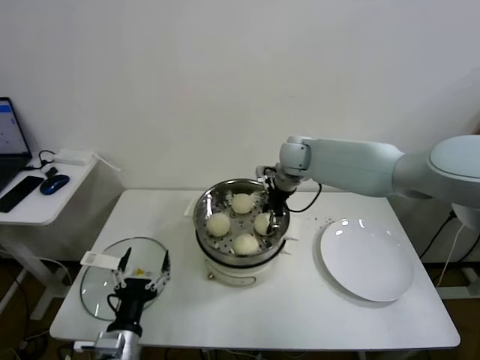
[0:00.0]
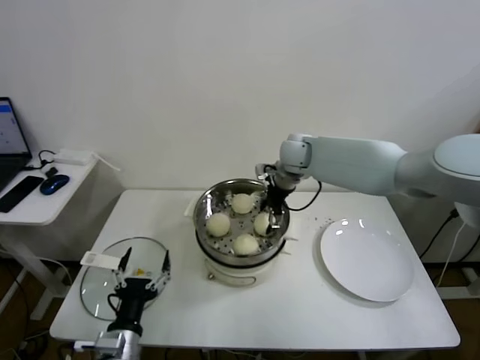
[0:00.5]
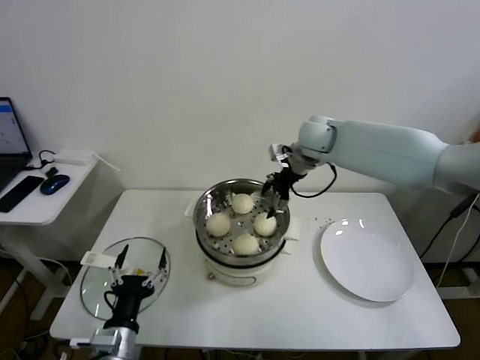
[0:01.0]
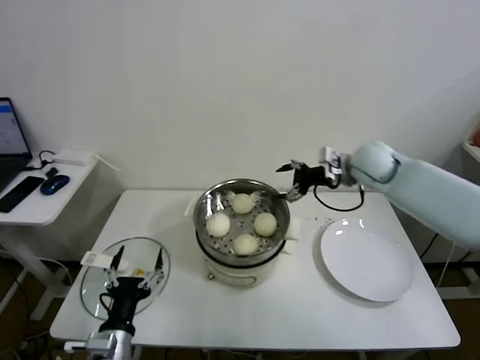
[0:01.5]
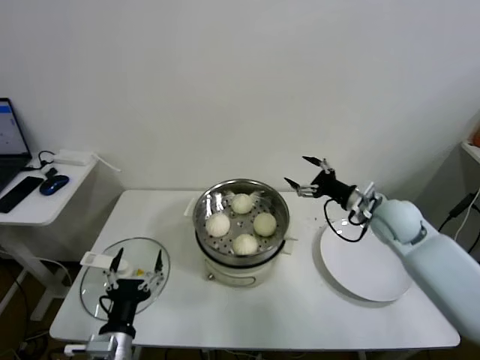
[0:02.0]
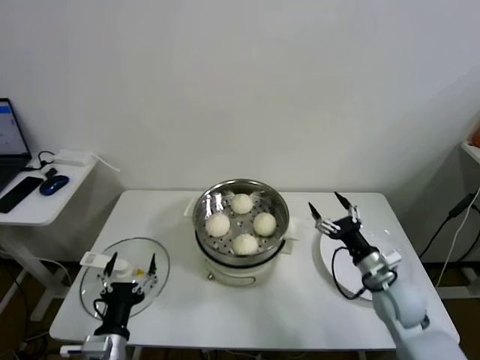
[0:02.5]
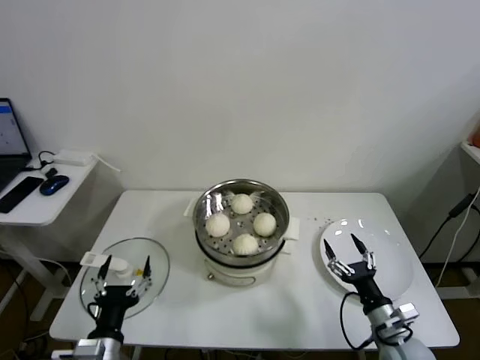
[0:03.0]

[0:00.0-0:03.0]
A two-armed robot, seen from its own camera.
Task of the whole recording: take steamed baozi put them in steamer.
0:00.0 to 0:01.5: The right gripper is displaced to the right by about 15 cm, and opens.
0:01.5 to 0:03.0: The right gripper goes some 40 cm backward and downward.

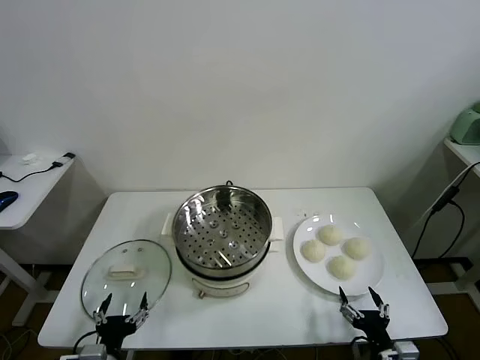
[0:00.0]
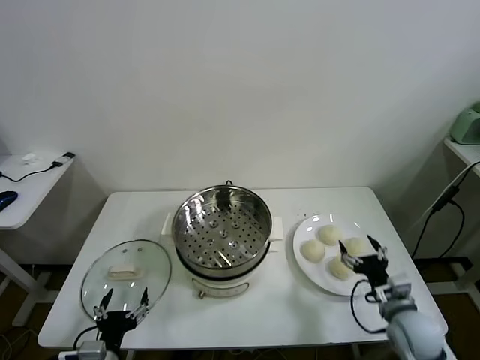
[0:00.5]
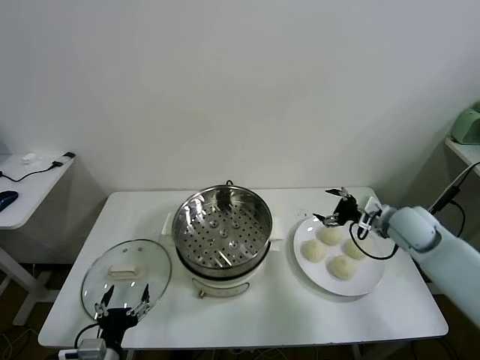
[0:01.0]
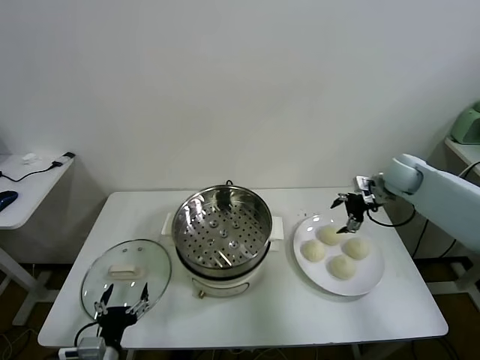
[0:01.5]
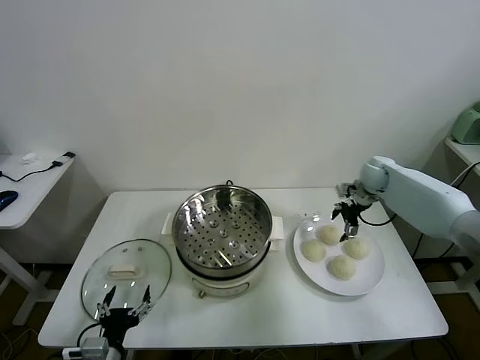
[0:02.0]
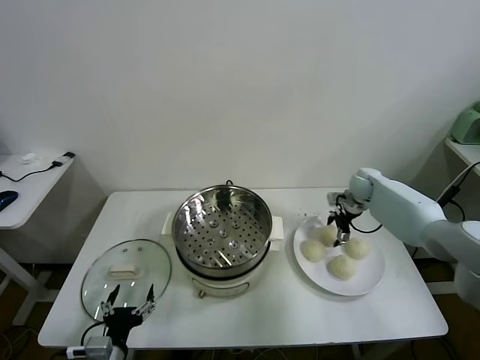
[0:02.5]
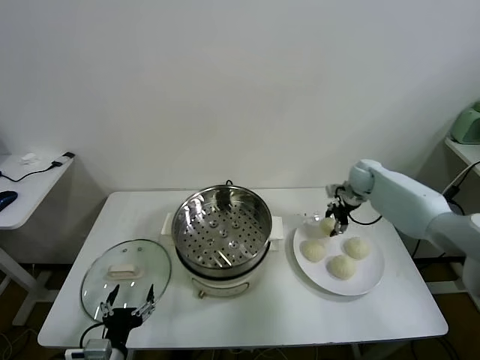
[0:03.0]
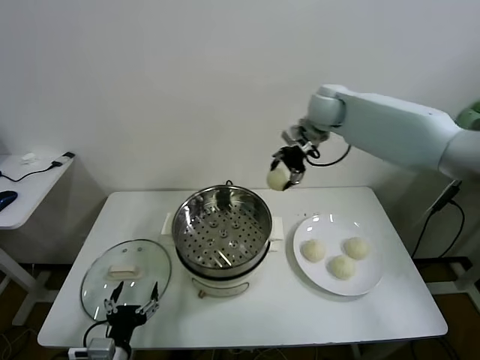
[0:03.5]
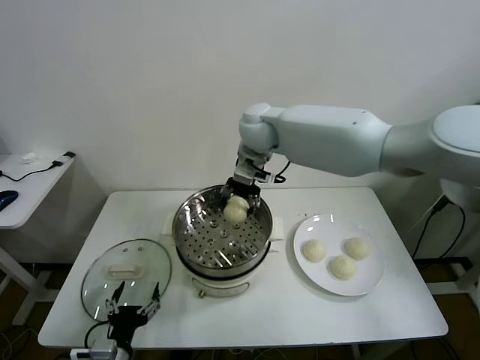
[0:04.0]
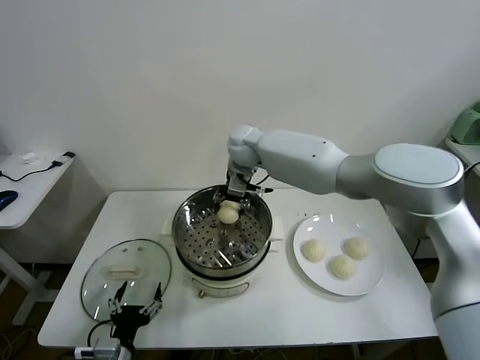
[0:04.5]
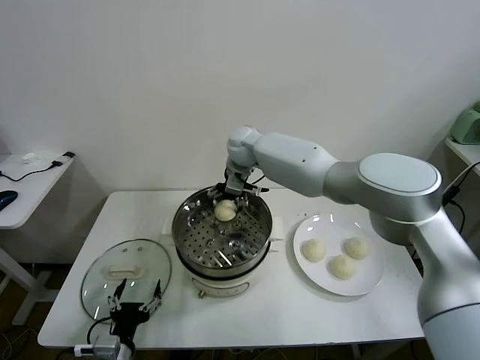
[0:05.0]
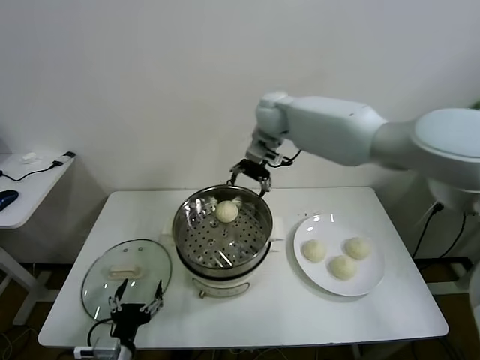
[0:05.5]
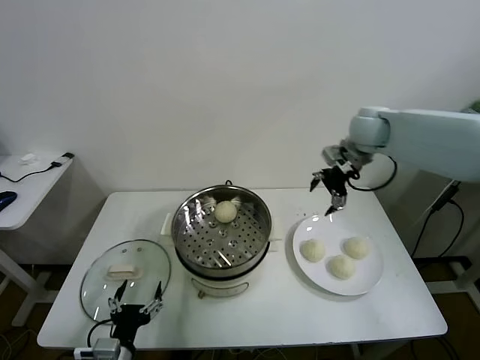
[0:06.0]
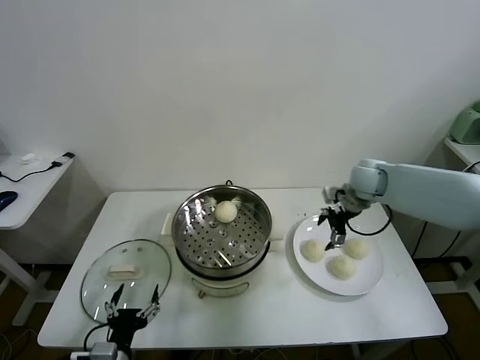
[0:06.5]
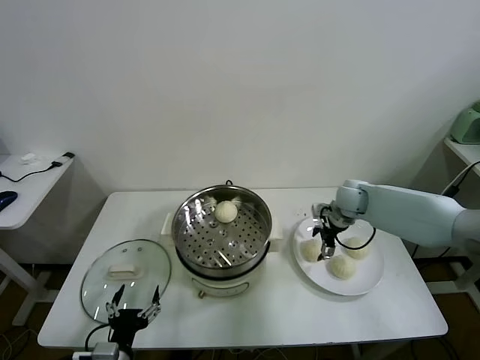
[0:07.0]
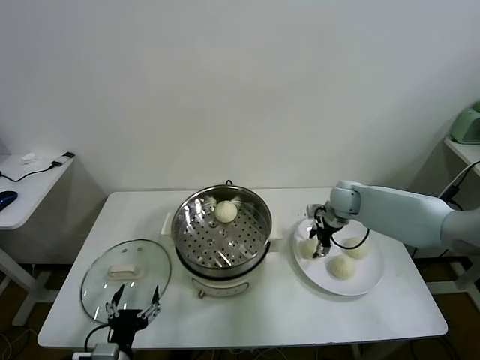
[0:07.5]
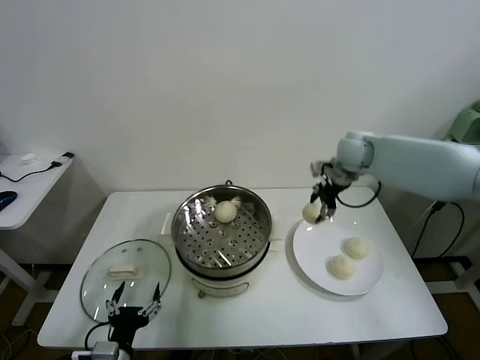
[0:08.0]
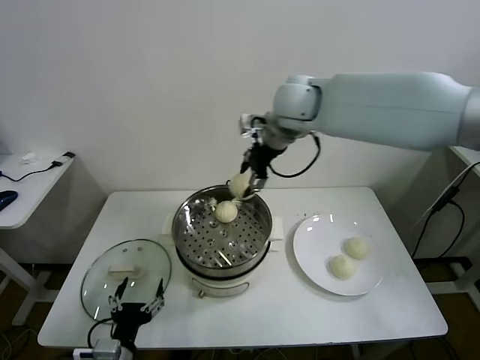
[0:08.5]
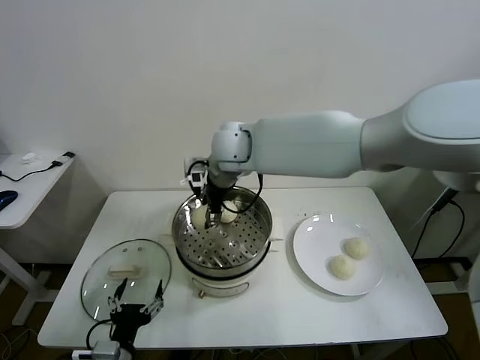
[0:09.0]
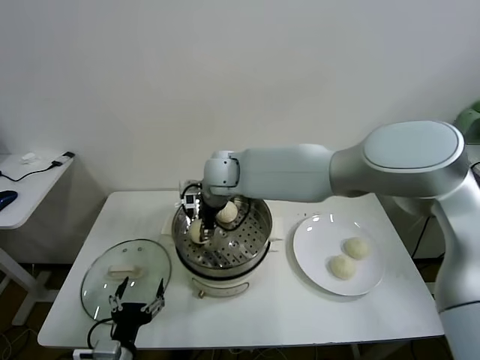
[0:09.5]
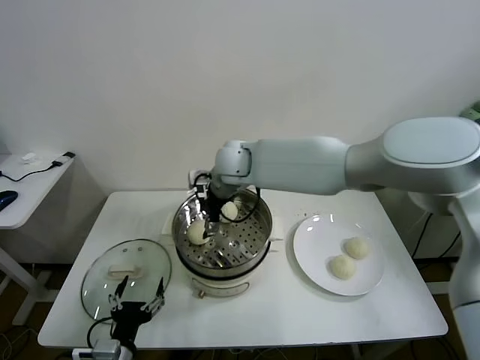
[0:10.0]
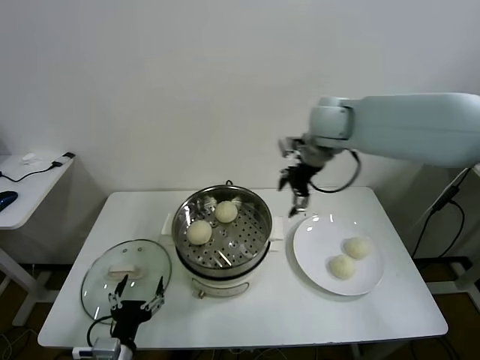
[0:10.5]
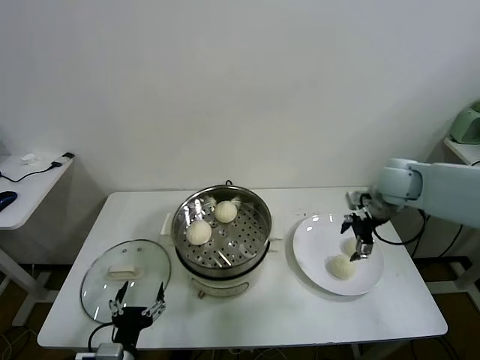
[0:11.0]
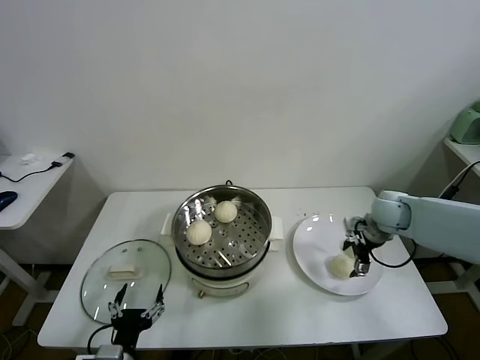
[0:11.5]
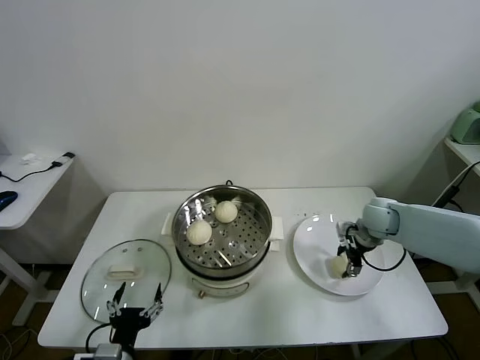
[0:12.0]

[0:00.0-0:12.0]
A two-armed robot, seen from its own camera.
Task of the whole recording: take steamed baozi put them in steamer.
Step, 0:00.0 to 0:02.5: Grasp the baozi in the plate with right gripper.
Step, 0:03.0 to 0:04.5: Place the baozi on the steamer with right gripper.
Step, 0:05.0 to 0:07.0: Grasp the baozi in the plate with right gripper.
Step, 0:07.5 to 0:09.5: Place the baozi on the steamer with right gripper.
Step, 0:10.0 to 0:12.0: Grasp the baozi in the plate with right gripper.
0:02.0 to 0:04.0: The right gripper shifts about 40 cm to the left and upward, and closes up.
0:04.0 to 0:06.0: The right gripper shifts roughly 25 cm to the right, and opens up.
0:06.0 to 0:08.0: The right gripper travels downward and back again, some 20 cm each way, and closes up.
0:08.0 to 0:10.0: The right gripper goes about 25 cm to the left, and opens its fingers.
0:10.0 to 0:12.0: The right gripper heads to the right and downward, covering approximately 40 cm, and closes.

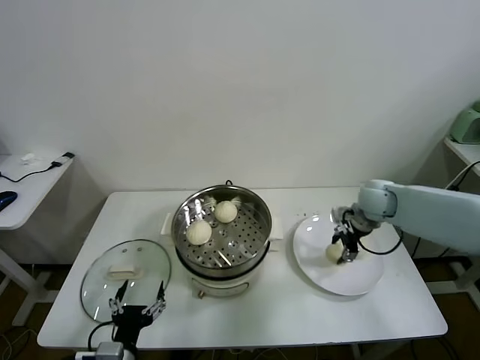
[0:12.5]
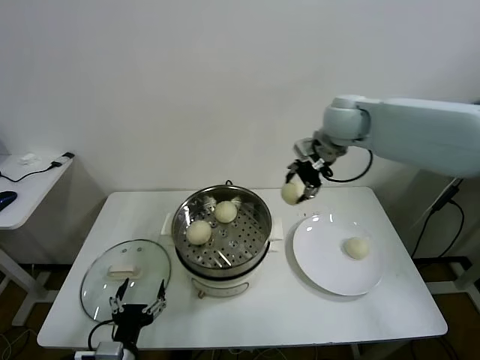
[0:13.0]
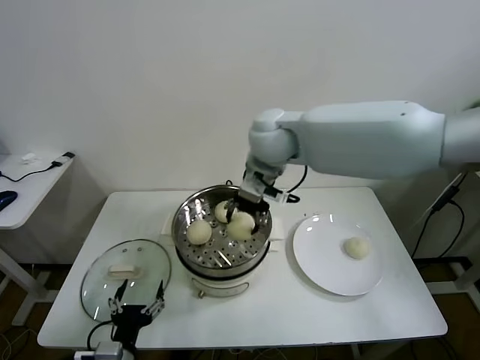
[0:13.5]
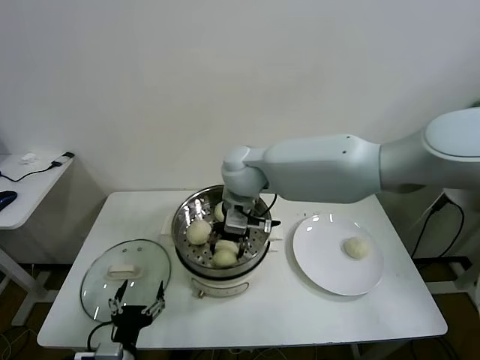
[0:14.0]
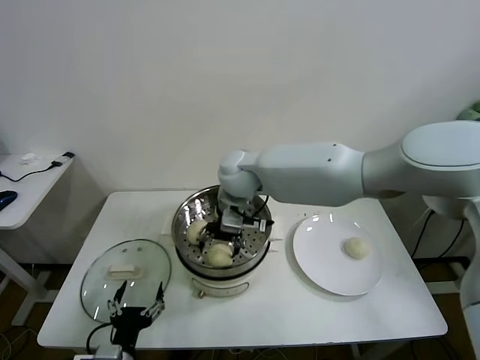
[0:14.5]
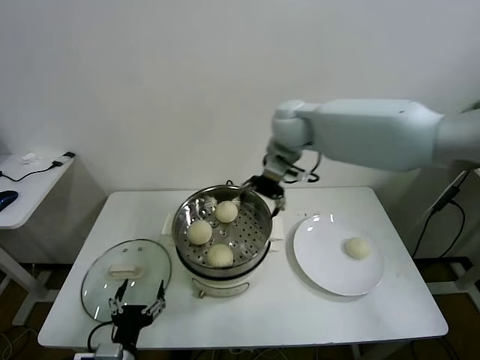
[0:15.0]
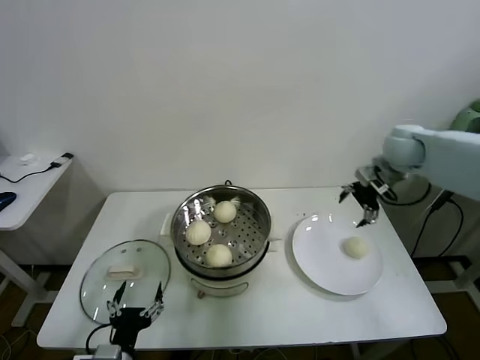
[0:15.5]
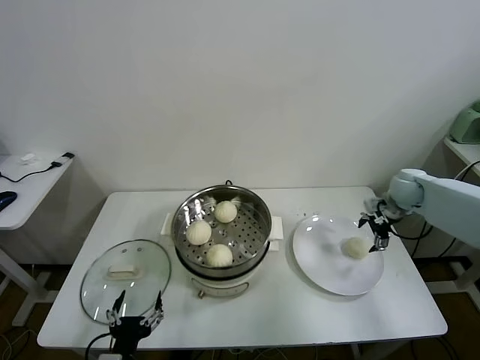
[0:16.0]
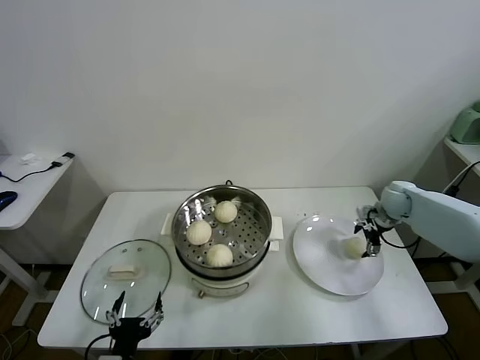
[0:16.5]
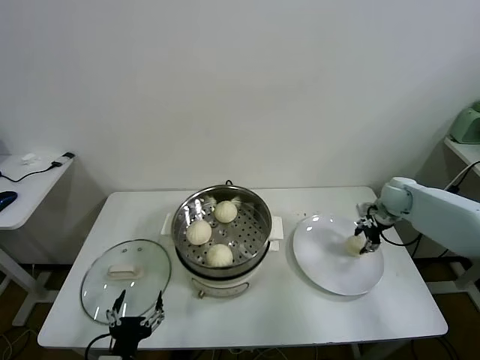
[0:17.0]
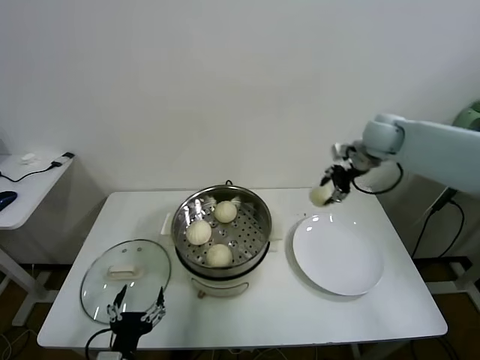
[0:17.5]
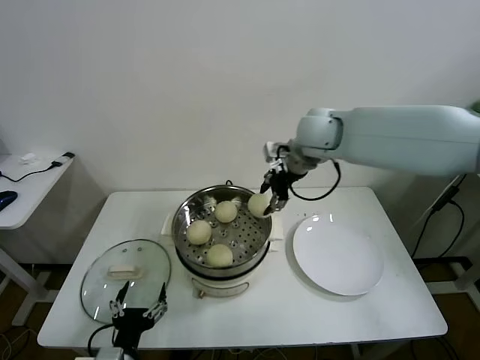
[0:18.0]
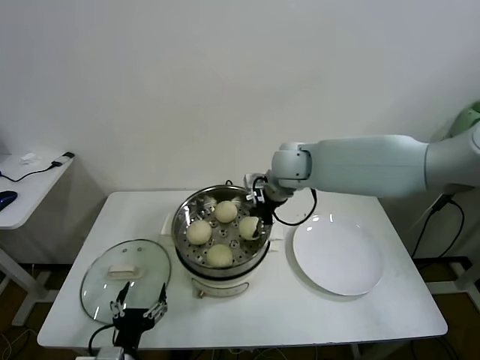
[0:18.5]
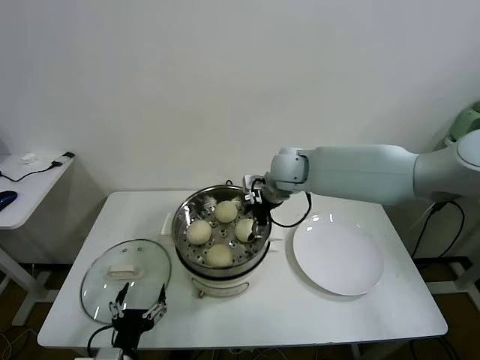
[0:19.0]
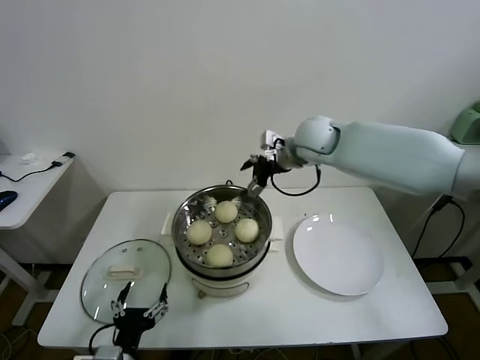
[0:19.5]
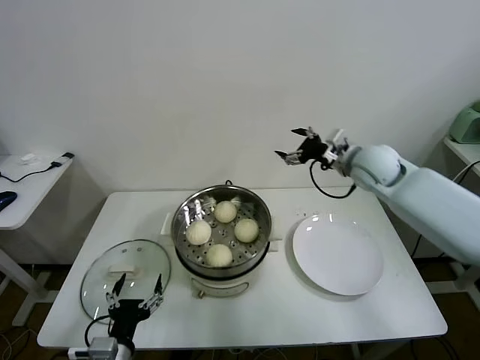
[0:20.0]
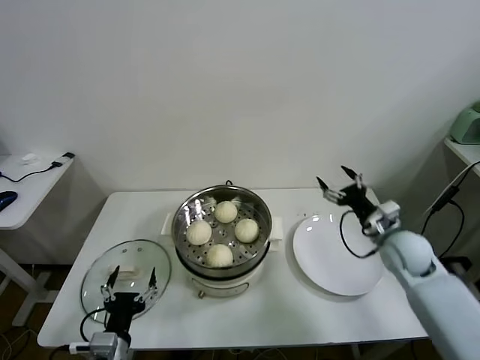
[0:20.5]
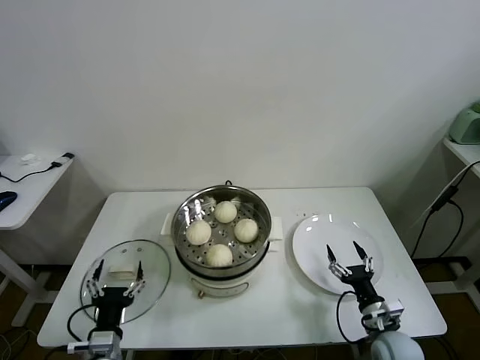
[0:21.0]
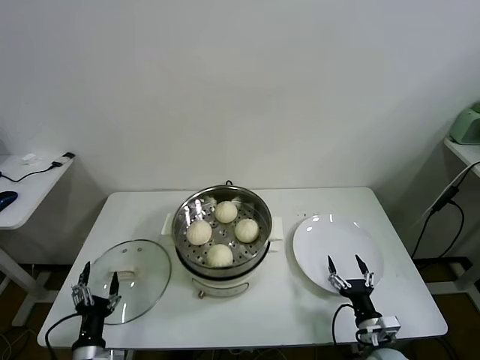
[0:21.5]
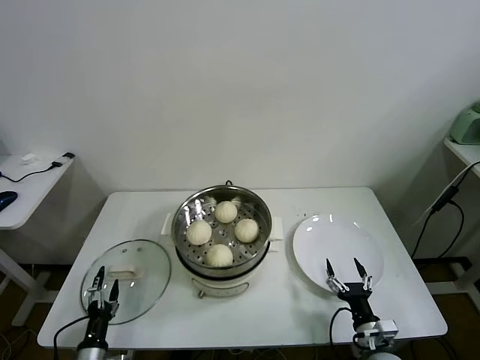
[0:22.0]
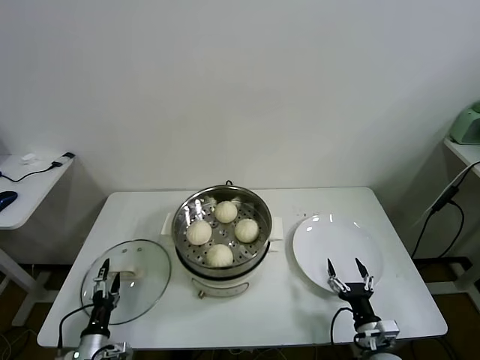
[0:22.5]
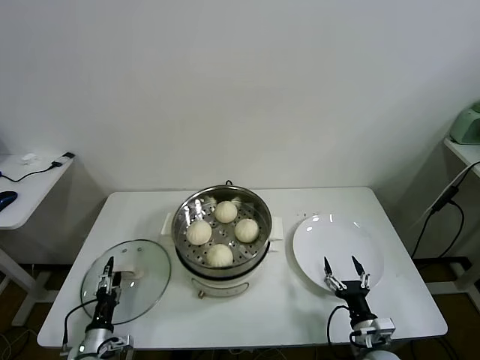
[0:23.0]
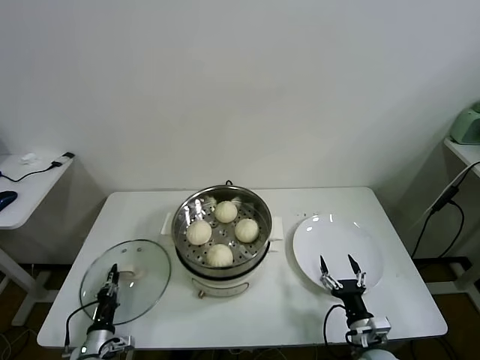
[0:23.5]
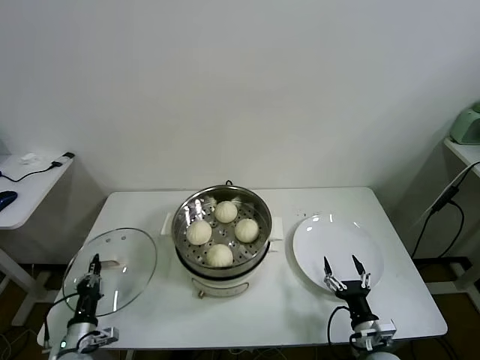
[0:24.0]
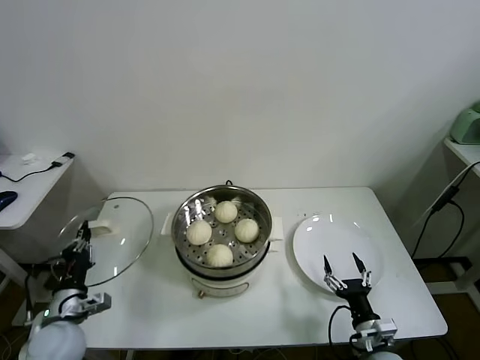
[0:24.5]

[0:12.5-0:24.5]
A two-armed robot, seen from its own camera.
Task of the whole recording: take steamed baozi put them in steamer.
Step, 0:12.5 to 0:14.5: Place the baozi on the steamer with right gripper.
Step, 0:15.0 to 0:16.5: Grasp the baozi in the plate with right gripper.
Step, 0:17.0 to 0:18.5: Place the baozi on the steamer with right gripper.
Step, 0:19.5 to 0:23.5: Grasp the pot lid with left gripper.
0:12.5 to 0:14.5: The right gripper heads to the left, covering roughly 35 cm, and opens up.
0:14.5 to 0:16.5: The right gripper is displaced to the right by approximately 40 cm.
0:16.5 to 0:18.5: The right gripper moves to the left and upward, about 35 cm, and closes up.
0:18.5 to 0:20.5: The right gripper heads to the right, downward and backward, covering about 35 cm, and opens up.
0:20.5 to 0:22.5: The left gripper goes about 20 cm downward and to the left. The right gripper goes roughly 25 cm backward and downward.
0:22.5 to 0:24.5: The left gripper moves upward, approximately 15 cm, and closes its fingers.
